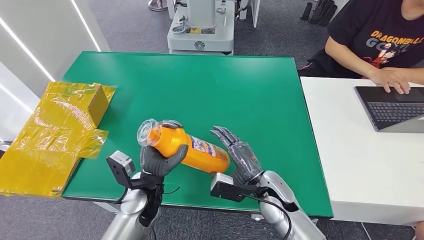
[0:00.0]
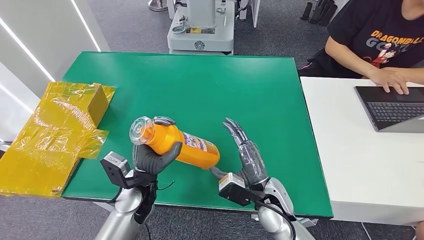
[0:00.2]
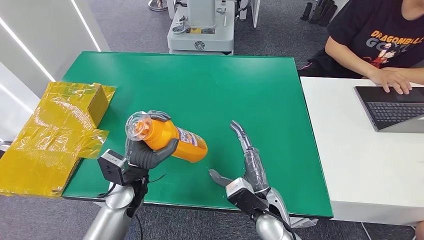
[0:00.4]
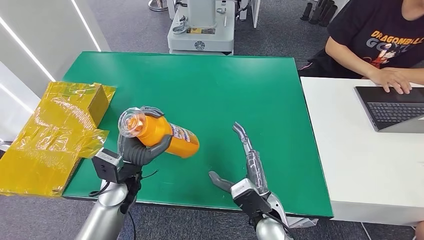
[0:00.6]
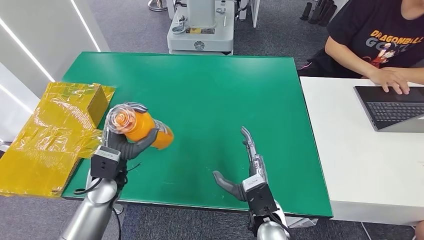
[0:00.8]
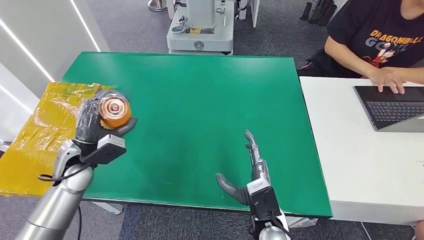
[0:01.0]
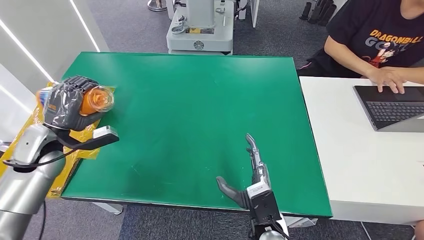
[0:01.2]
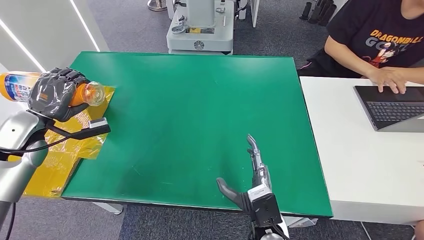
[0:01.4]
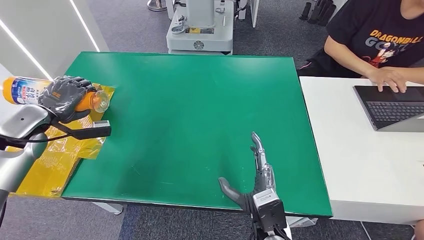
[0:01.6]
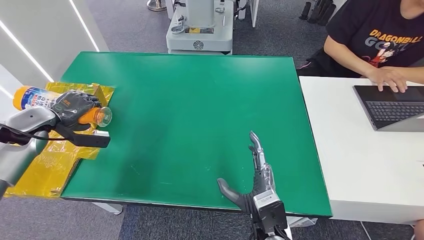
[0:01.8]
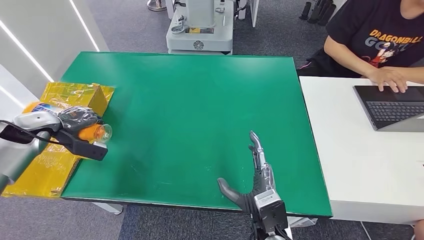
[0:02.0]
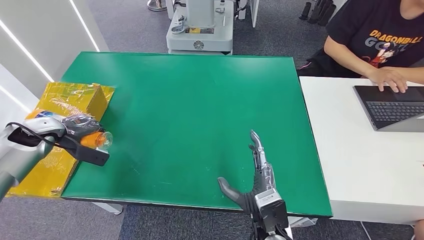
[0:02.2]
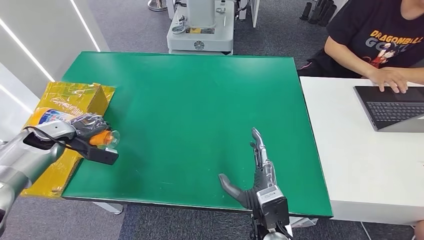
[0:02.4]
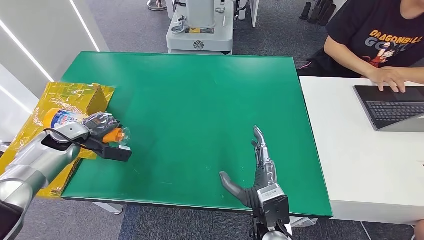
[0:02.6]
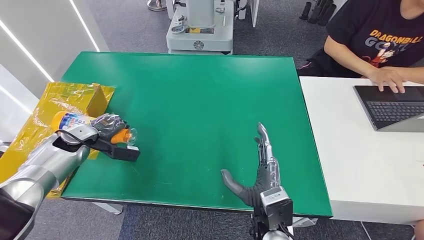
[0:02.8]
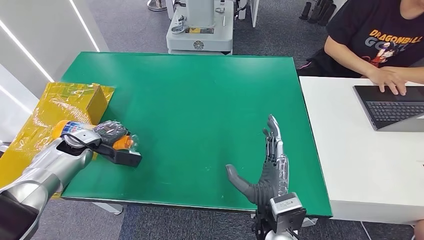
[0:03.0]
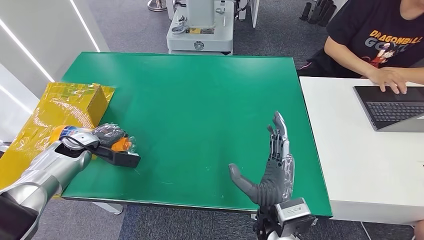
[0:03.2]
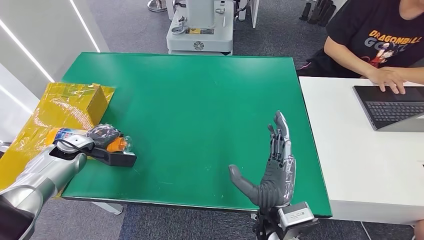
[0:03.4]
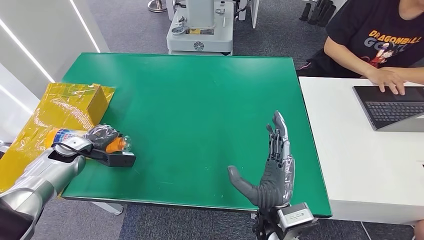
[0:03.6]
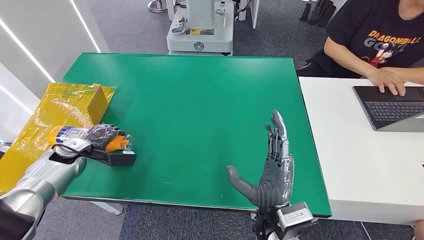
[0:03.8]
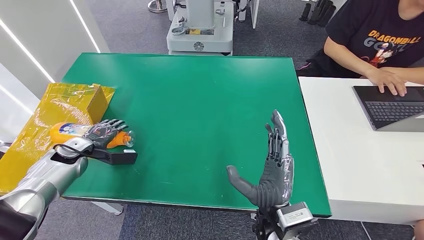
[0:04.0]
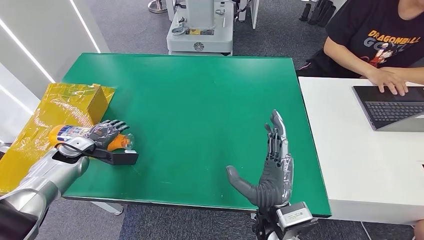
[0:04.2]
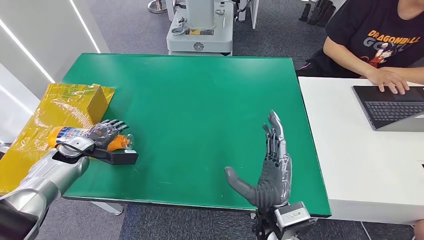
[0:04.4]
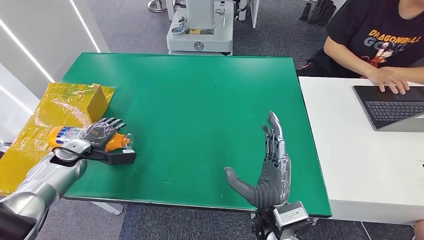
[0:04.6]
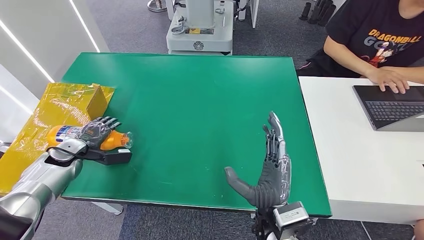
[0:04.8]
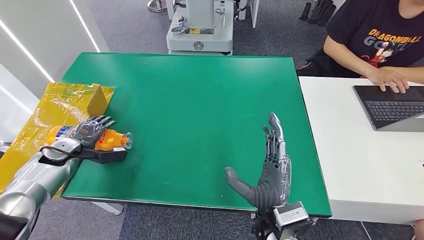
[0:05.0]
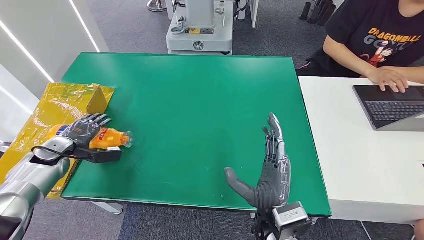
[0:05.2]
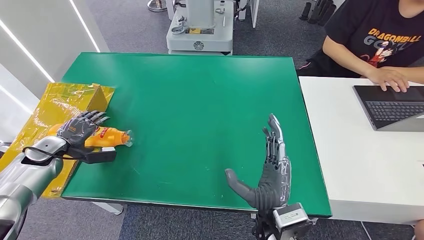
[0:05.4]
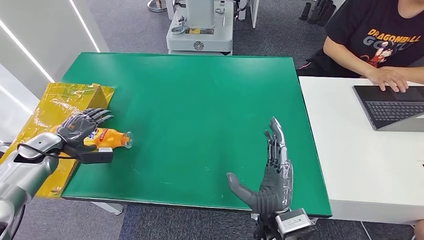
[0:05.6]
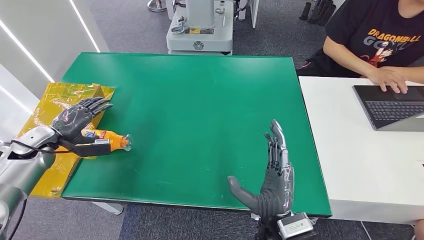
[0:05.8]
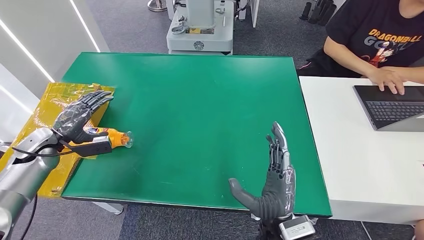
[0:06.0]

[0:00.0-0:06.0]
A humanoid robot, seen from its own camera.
Step, 0:00.0 to 0:06.0: Turn the bottle to the front side.
0:00.0 to 0:01.6: The left hand travels to the left and upward by about 35 cm. Meanwhile the right hand moves backward, roughly 10 cm.
0:01.6 to 0:03.0: The left hand shifts some 10 cm downward.
0:03.0 to 0:04.4: The hands move only a little.
0:04.4 to 0:06.0: The left hand shifts by roughly 5 cm.
